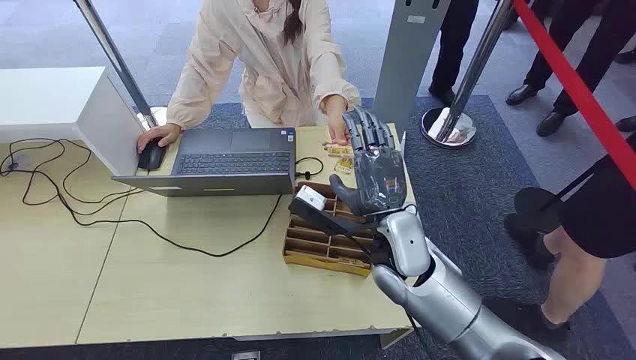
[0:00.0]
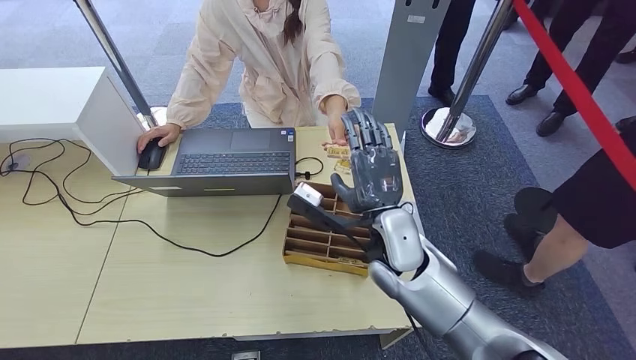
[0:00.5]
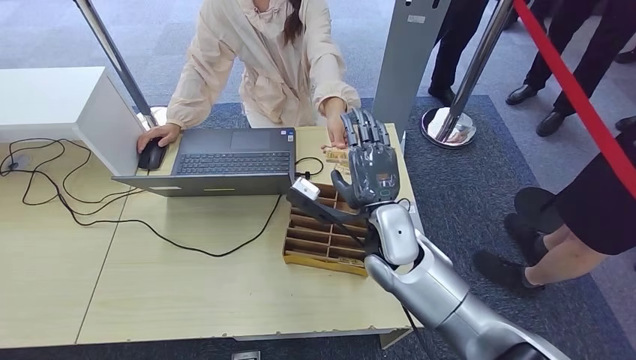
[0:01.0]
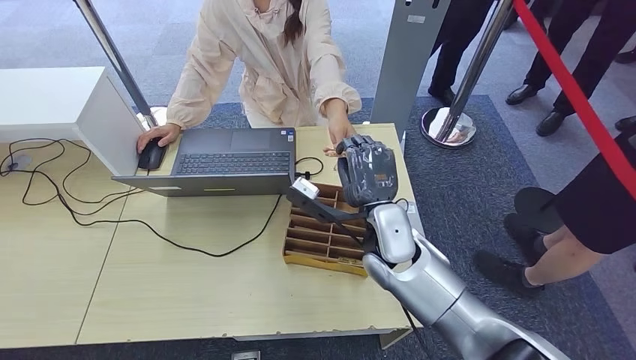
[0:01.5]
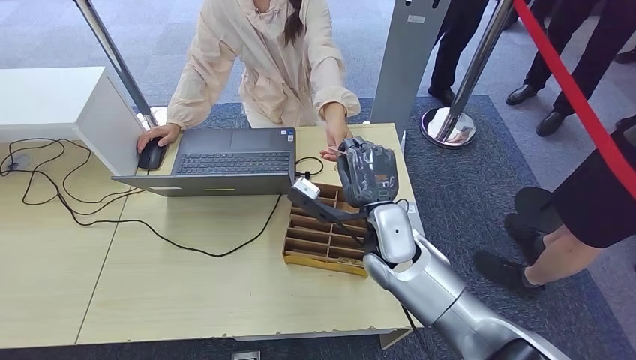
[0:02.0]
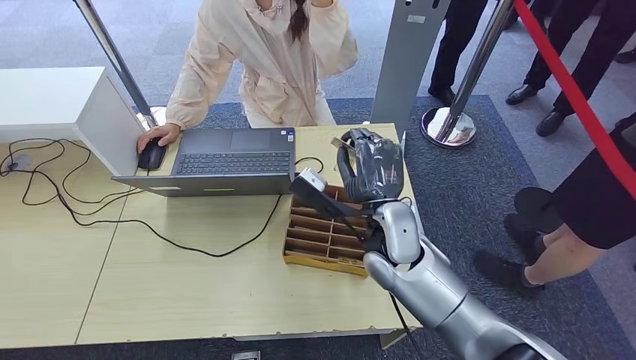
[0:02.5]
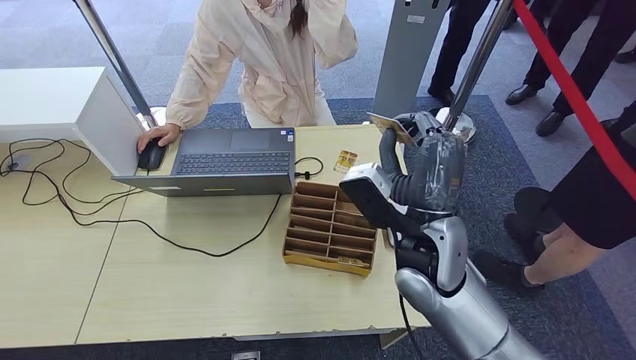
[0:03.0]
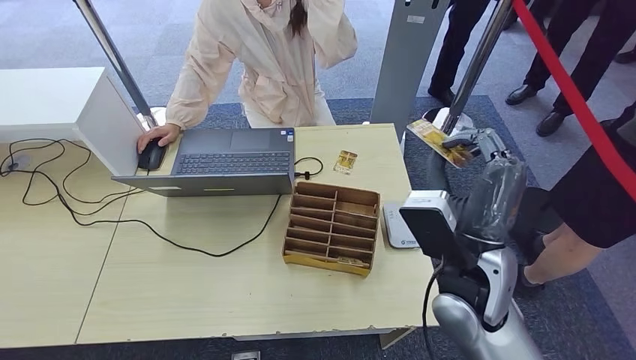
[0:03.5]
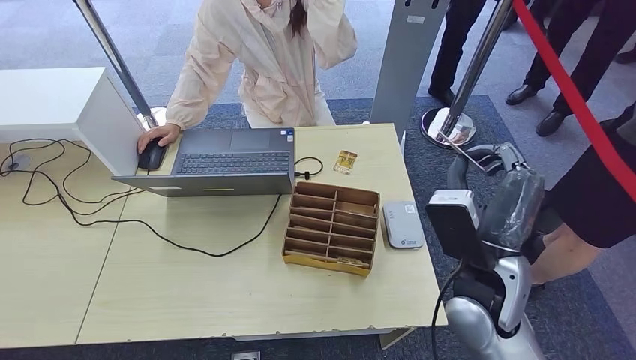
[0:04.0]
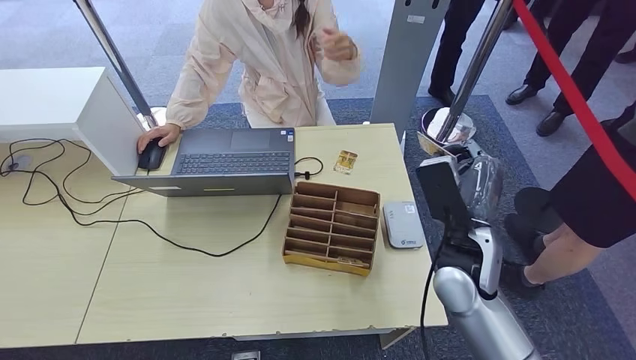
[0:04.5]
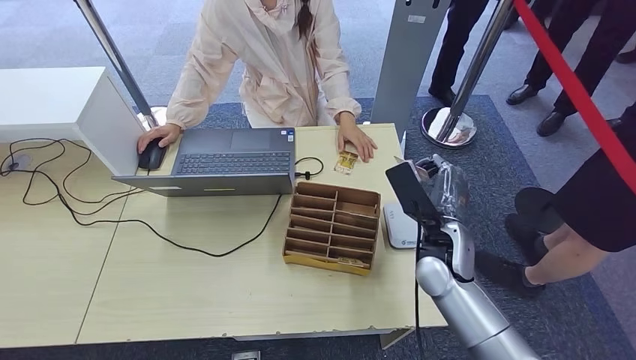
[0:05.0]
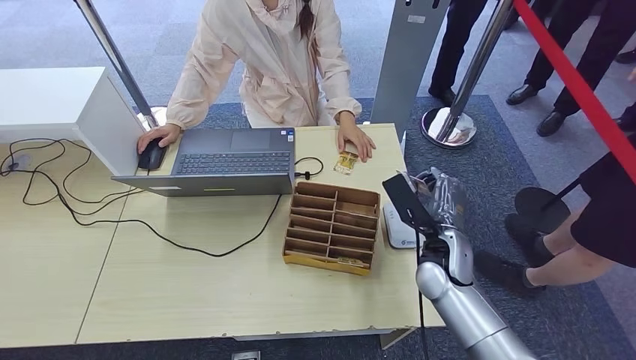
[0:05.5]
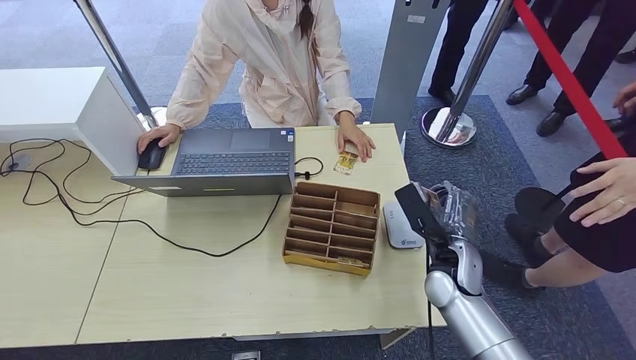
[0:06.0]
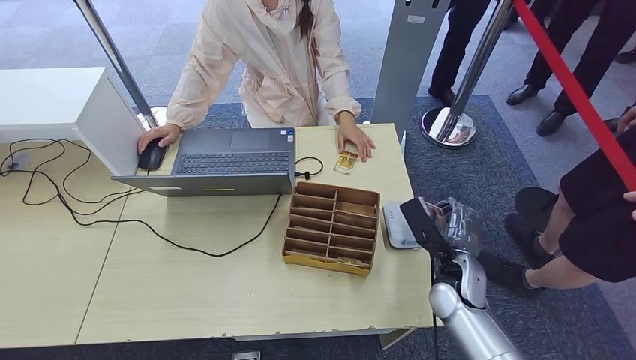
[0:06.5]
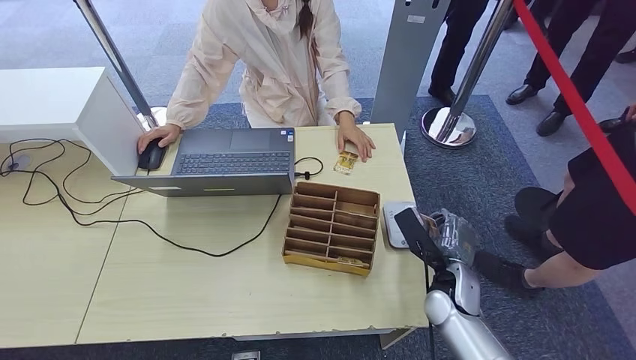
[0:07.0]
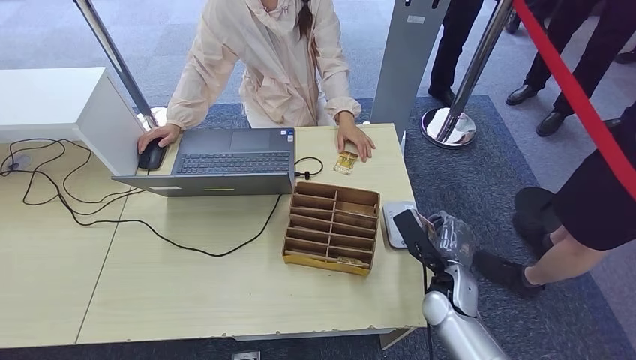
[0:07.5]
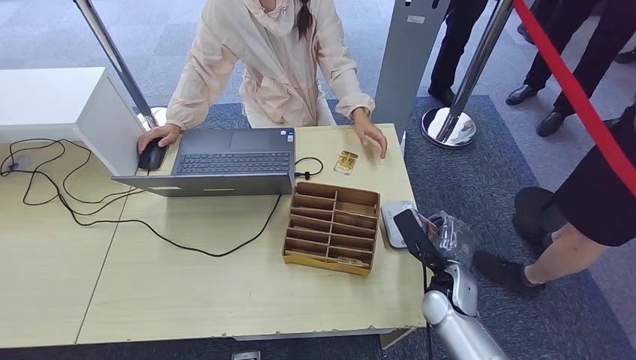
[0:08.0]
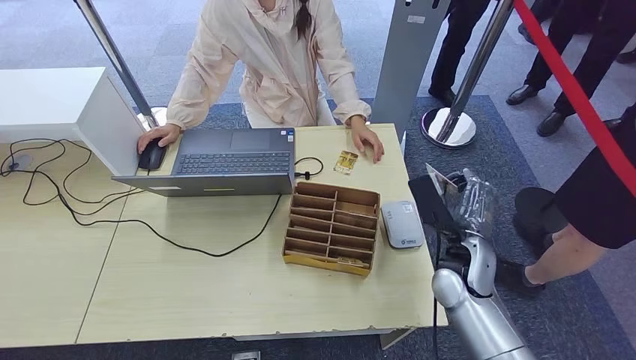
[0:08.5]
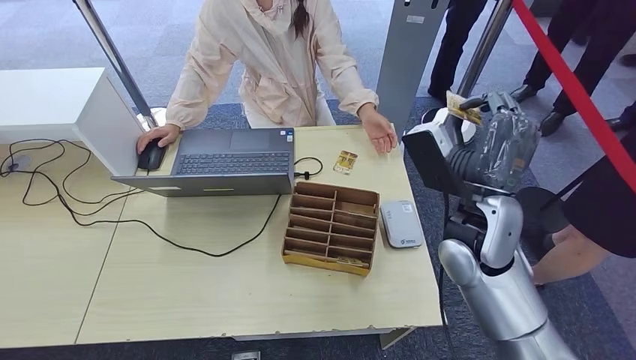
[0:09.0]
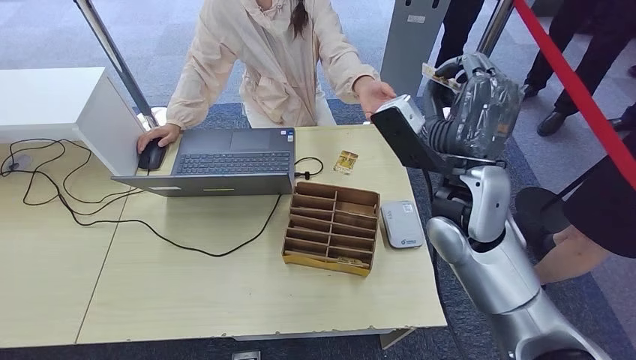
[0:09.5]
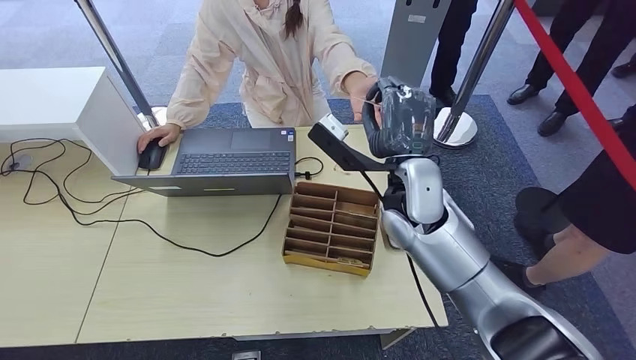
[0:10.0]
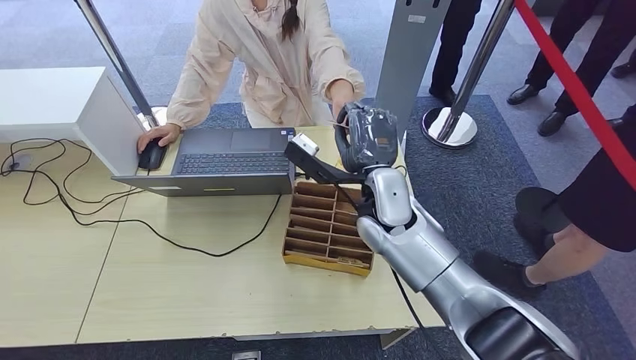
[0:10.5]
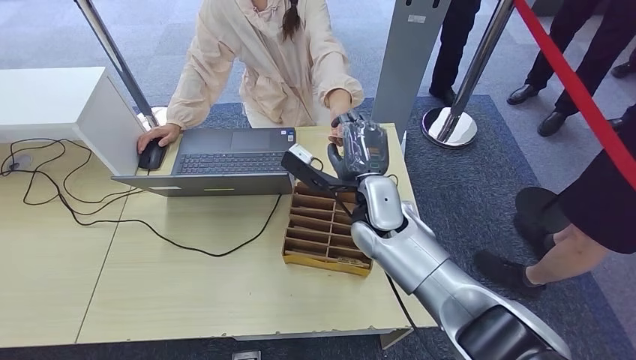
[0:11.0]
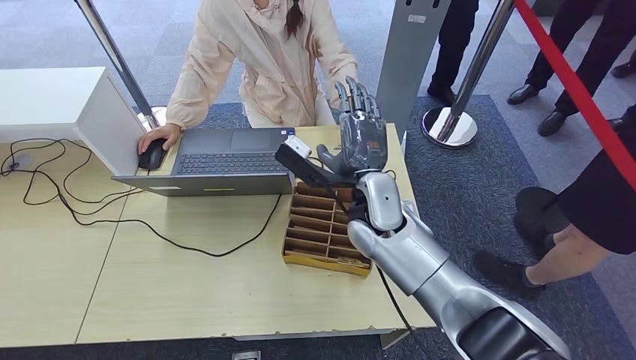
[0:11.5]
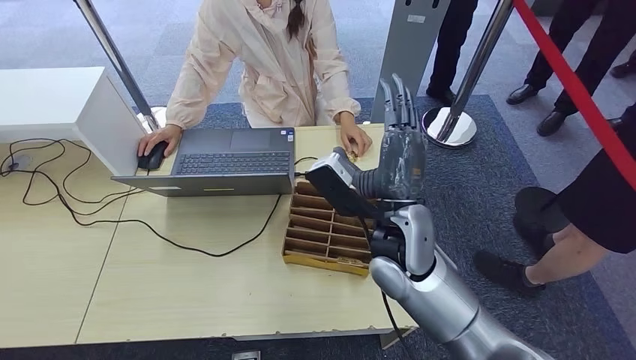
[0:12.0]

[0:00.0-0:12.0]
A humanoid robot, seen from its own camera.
Step, 0:00.0 to 0:03.0: Take the ID card from the person's hand.
Step, 0:03.5 to 0:07.5: Place the ID card on the card reader.
0:02.0 to 0:04.0: The right hand shifts some 15 cm backward, to the right and upward.
0:04.0 to 0:06.0: The right hand is displaced downward and forward by roughly 15 cm.
0:06.0 to 0:08.0: The right hand moves downward, some 5 cm.
0:08.0 to 0:10.0: The right hand shifts roughly 25 cm upward and to the left.
0:10.0 to 0:12.0: The right hand shifts approximately 5 cm backward.

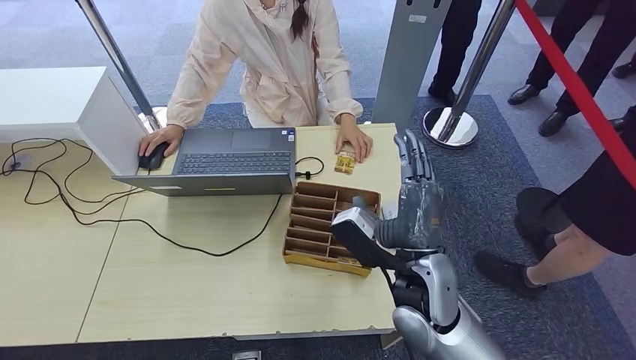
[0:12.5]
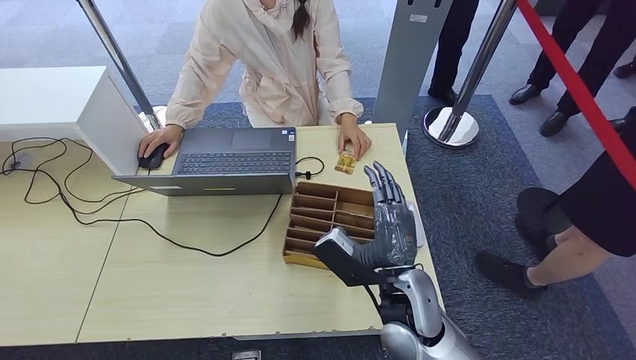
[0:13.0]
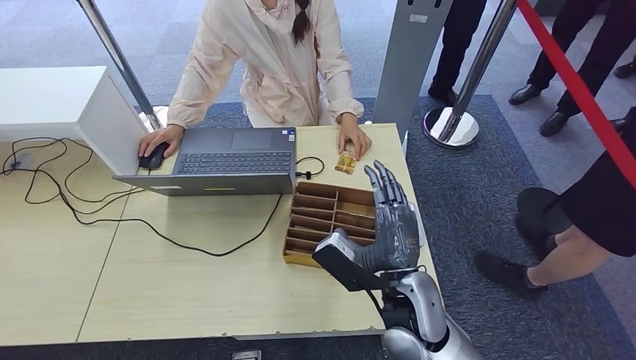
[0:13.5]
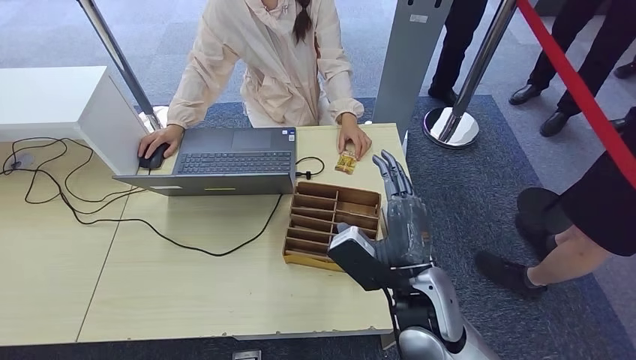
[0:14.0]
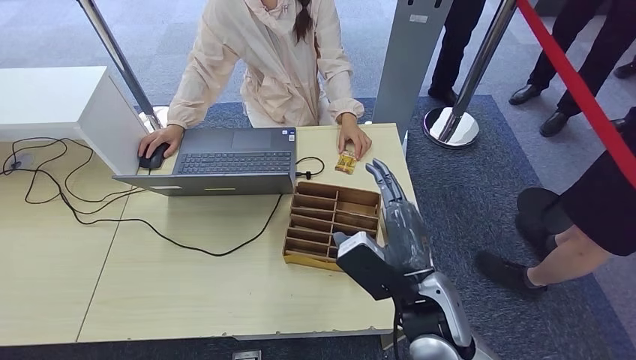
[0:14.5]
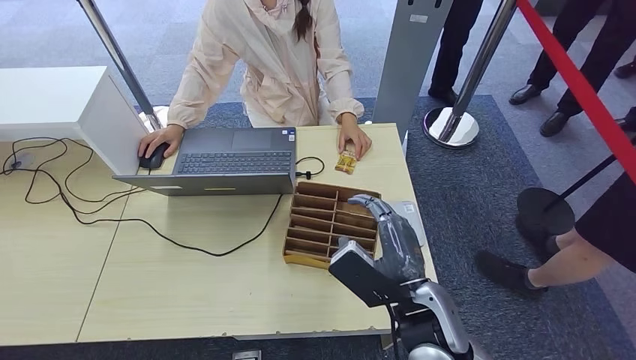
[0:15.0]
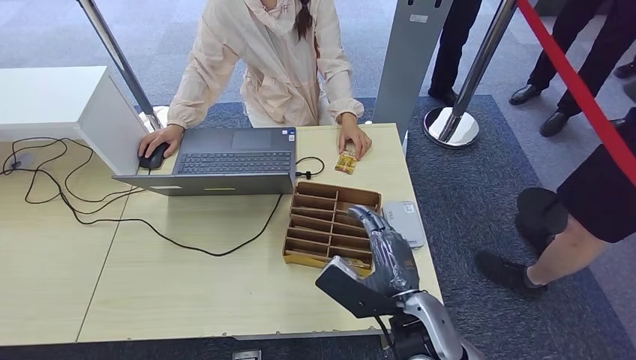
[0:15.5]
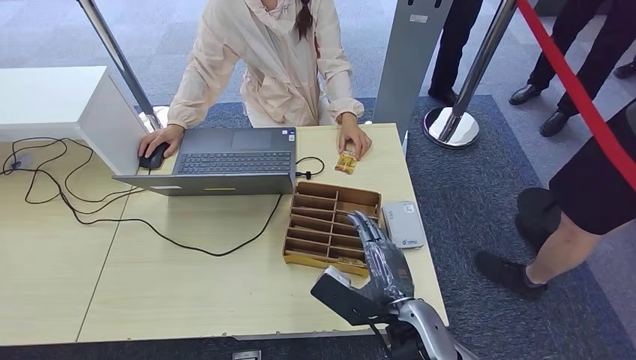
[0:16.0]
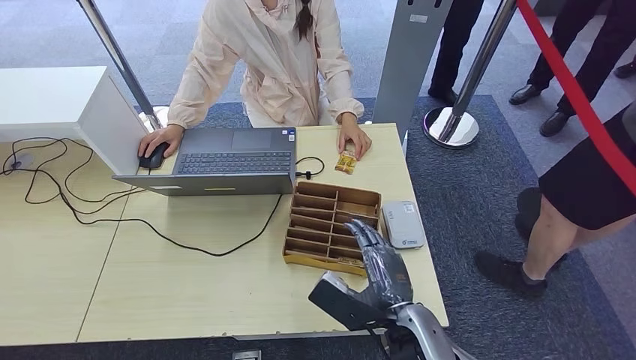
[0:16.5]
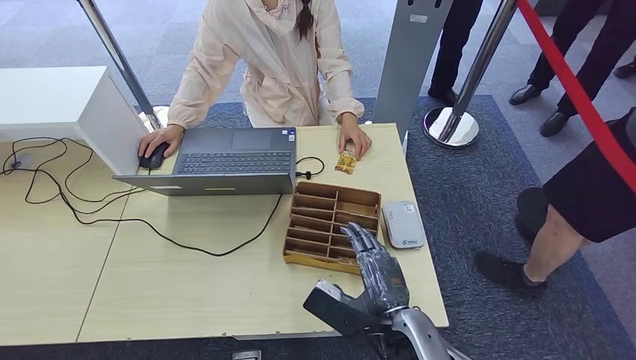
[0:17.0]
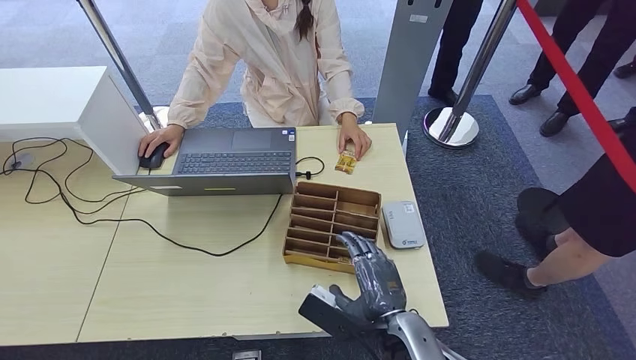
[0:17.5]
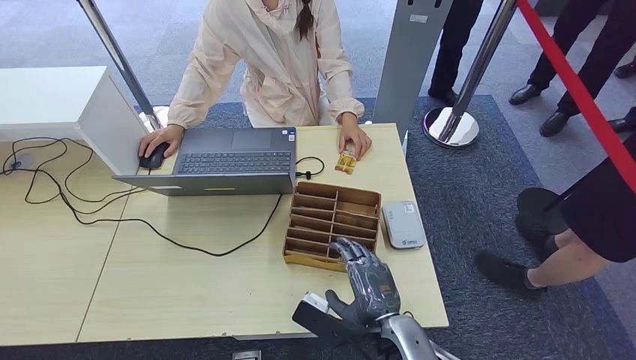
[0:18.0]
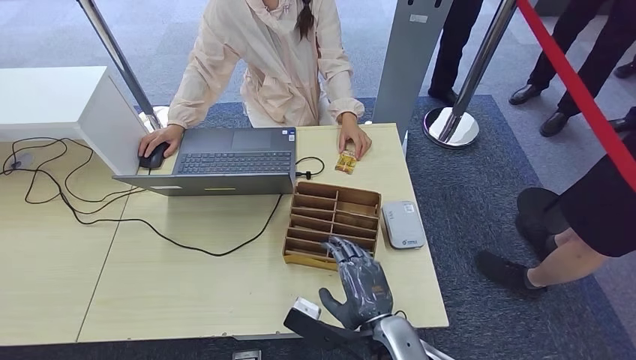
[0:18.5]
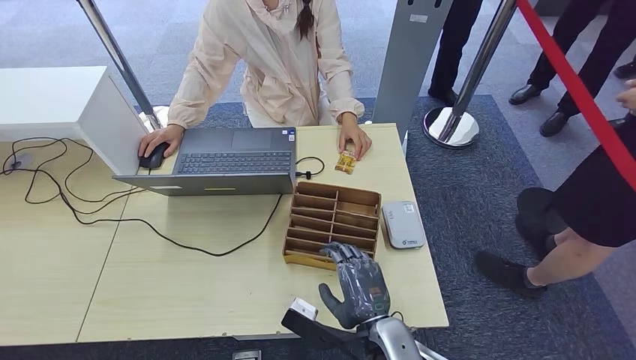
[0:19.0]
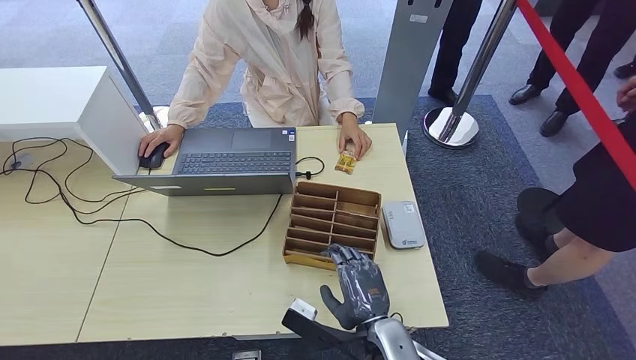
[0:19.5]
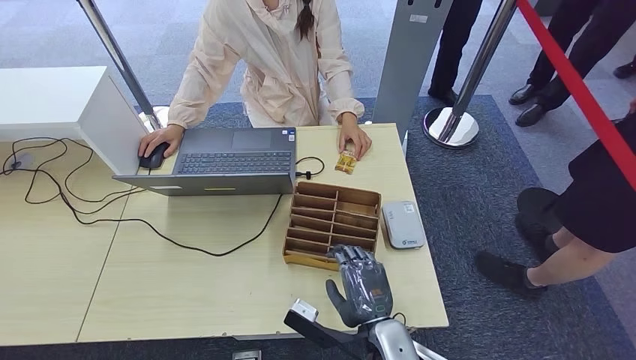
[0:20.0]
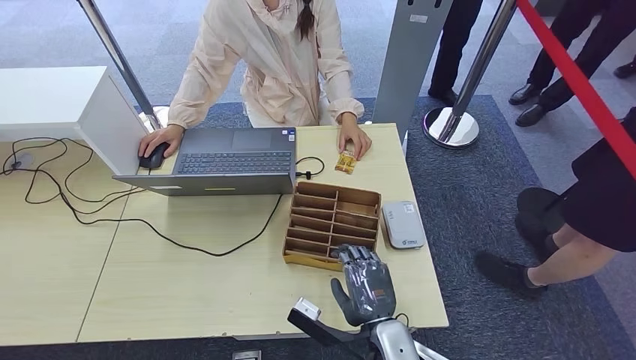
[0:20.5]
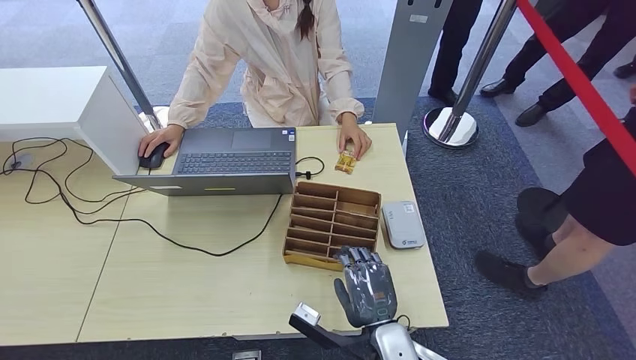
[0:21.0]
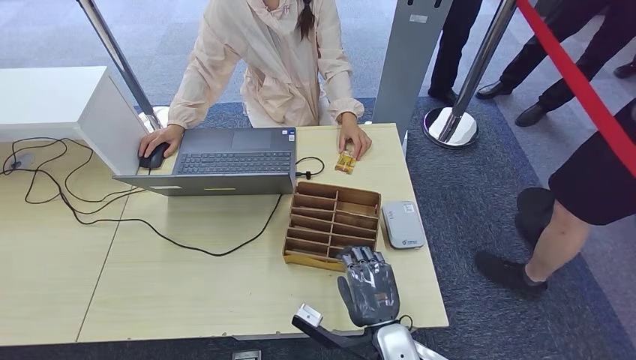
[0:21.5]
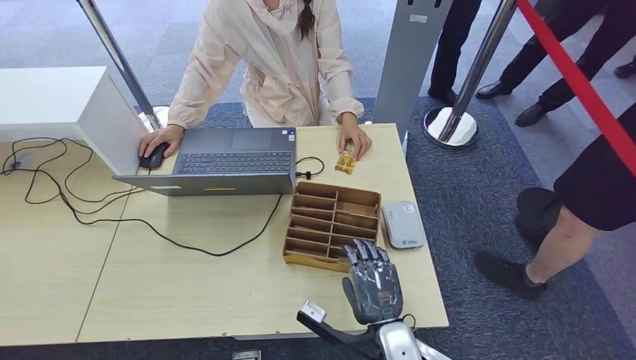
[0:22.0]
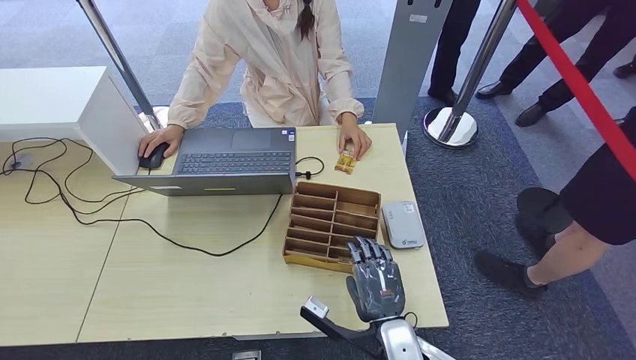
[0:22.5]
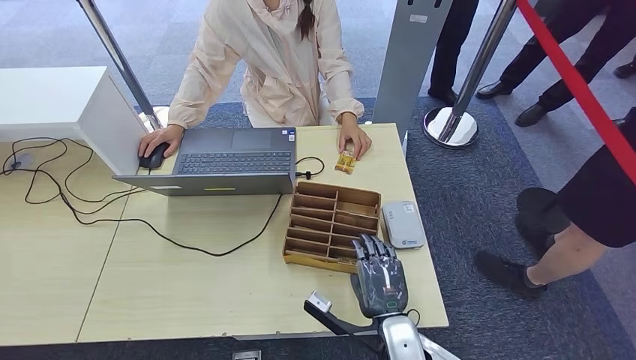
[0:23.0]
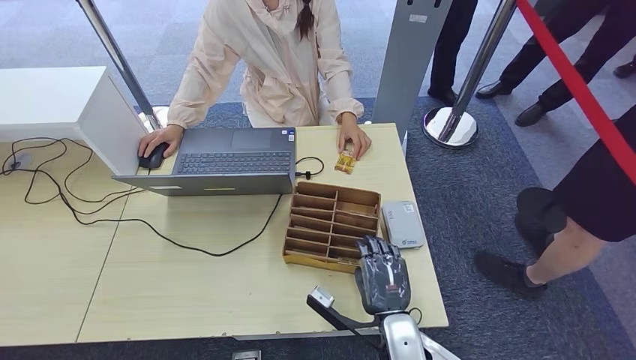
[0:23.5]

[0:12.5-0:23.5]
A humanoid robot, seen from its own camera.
0:14.5 to 0:16.0: The right hand travels downward by some 5 cm.
0:16.0 to 0:18.0: The hands make only small movements.
0:18.0 to 0:20.0: The hands stay close to where they were, moving slightly.
0:20.0 to 0:23.5: The hands stay close to where they were, moving slightly.
